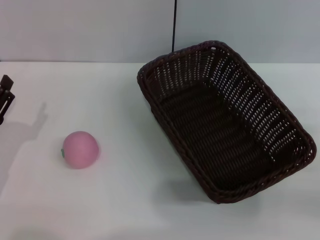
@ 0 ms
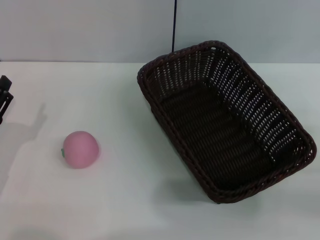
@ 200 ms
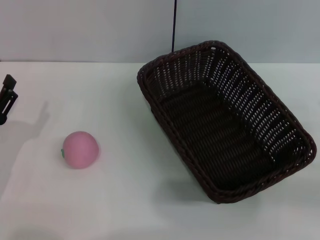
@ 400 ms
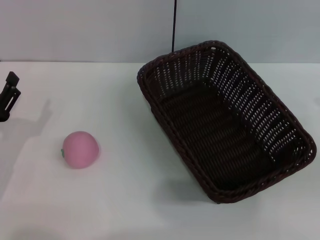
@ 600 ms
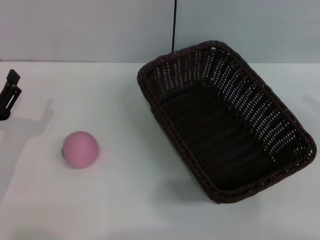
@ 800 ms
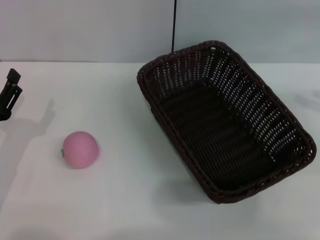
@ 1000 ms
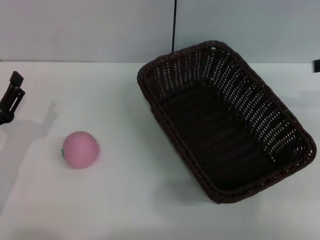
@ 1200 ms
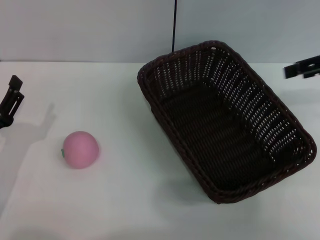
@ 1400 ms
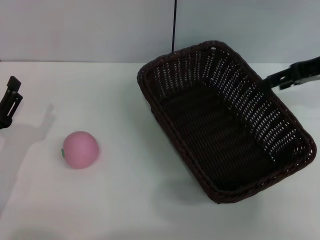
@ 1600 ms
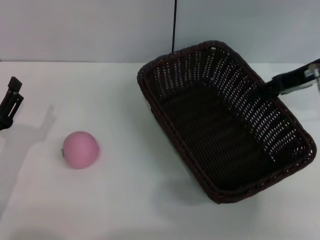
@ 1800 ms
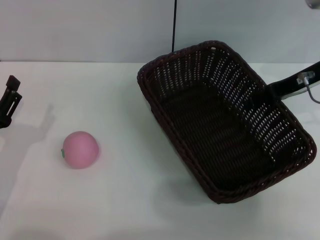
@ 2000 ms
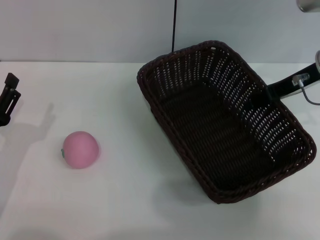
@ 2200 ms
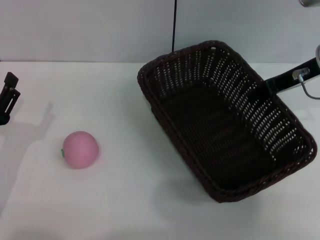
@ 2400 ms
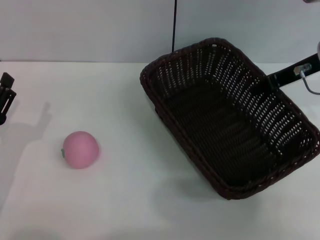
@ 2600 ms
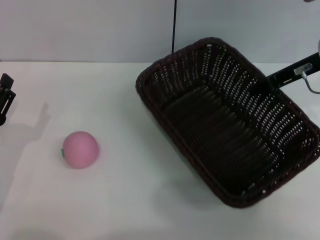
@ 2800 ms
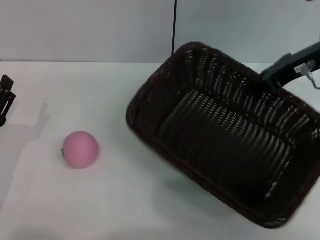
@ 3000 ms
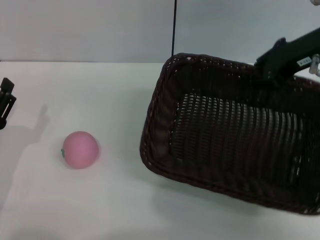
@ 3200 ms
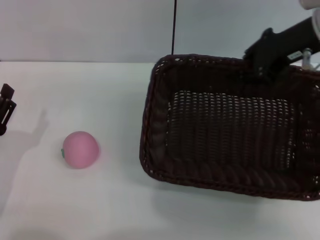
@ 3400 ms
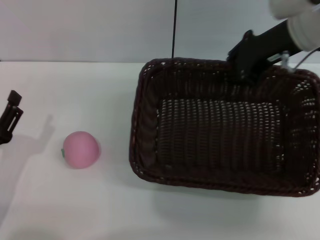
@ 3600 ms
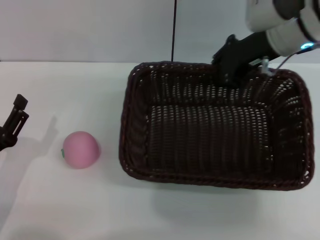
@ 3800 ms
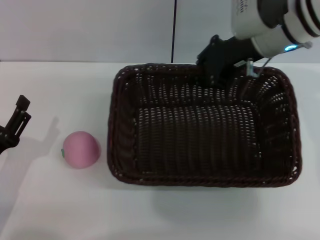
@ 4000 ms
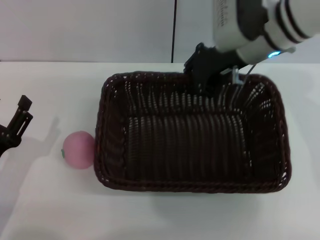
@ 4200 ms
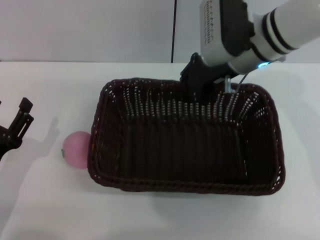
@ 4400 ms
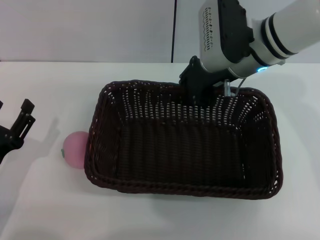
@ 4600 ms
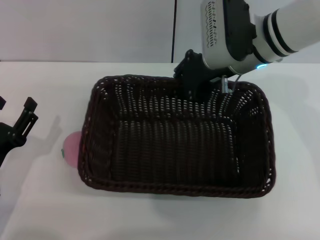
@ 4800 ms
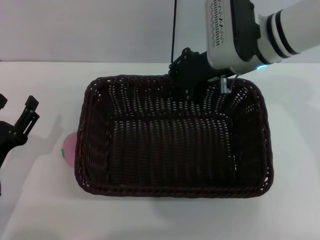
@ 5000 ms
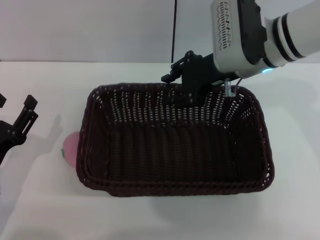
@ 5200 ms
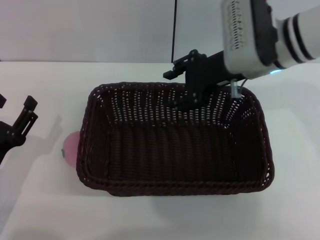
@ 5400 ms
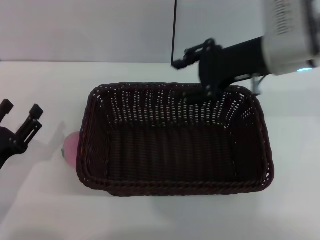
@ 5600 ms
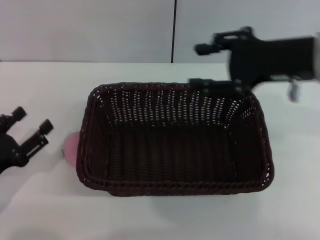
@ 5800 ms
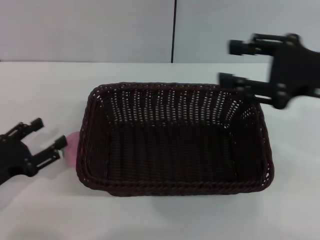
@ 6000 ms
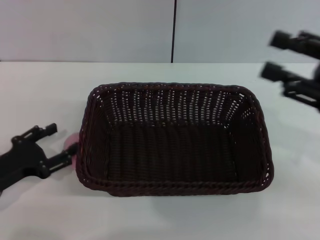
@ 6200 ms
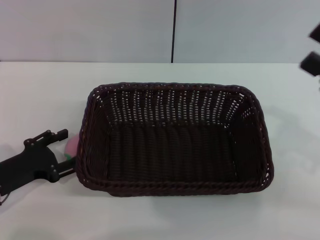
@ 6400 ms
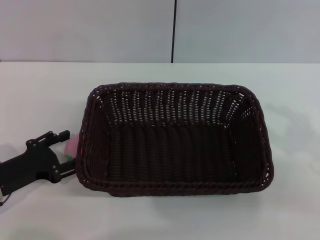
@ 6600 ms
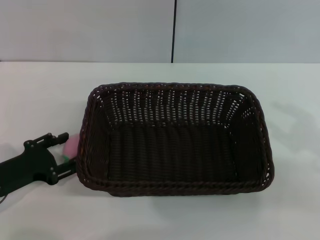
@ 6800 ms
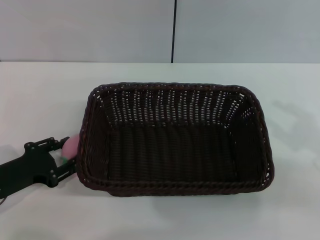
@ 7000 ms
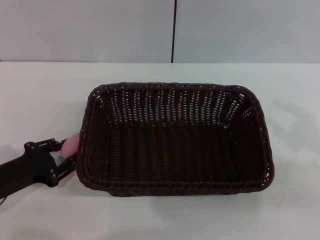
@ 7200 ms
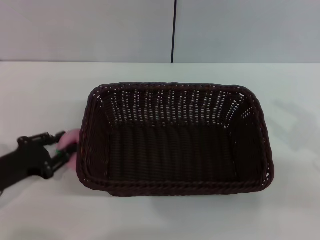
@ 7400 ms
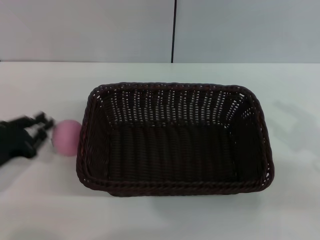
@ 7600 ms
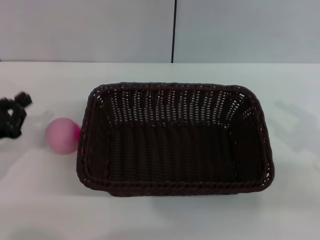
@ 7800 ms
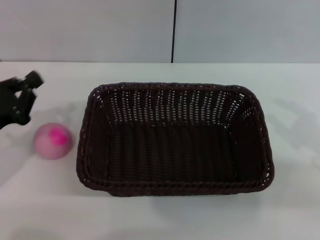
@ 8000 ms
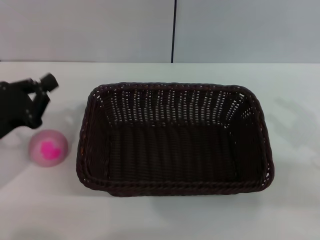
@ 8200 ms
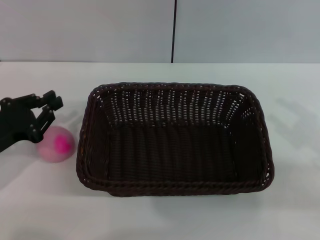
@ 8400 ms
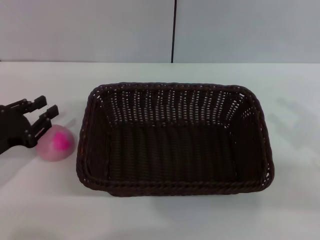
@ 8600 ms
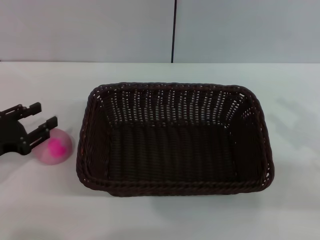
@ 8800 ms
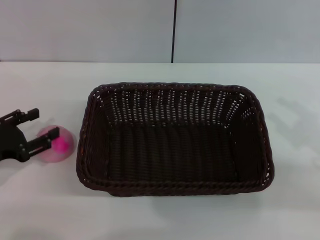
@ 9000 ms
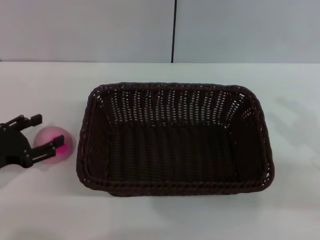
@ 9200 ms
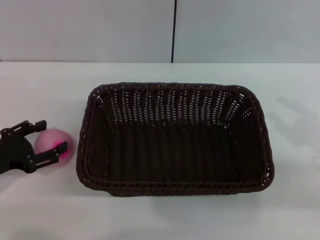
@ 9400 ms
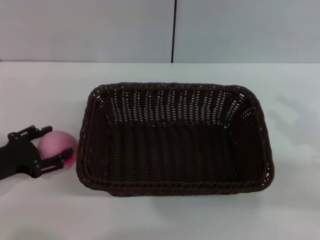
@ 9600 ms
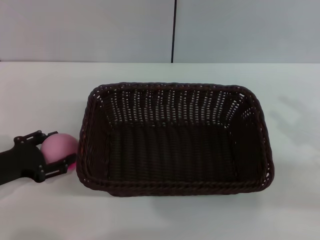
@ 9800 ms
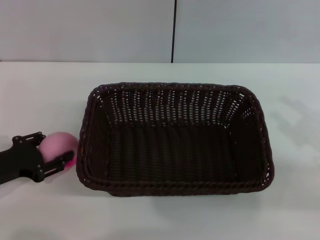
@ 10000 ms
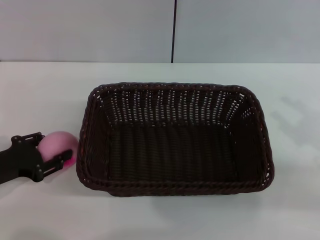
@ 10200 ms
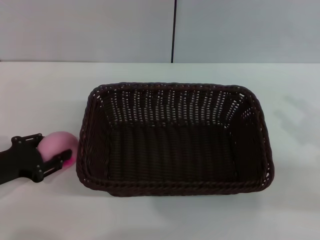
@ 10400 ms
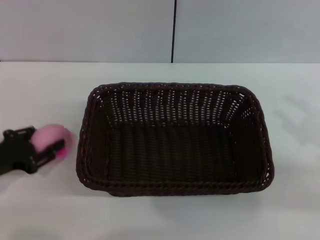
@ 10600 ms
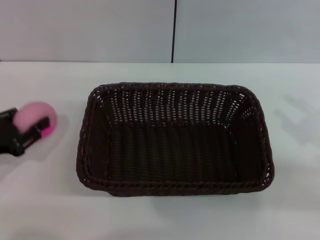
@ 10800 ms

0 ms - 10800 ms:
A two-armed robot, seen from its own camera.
Step, 0 ms - 2800 ms: Pick up the dark basket with the right gripper.
Step, 3200 ms - 5400 ms: Place the dark basket in the center of view with the right gripper.
0 ms - 1600 ms: The right gripper is displaced forward, upward and to the left by about 25 cm.
1600 ms - 3000 ms: The right gripper goes about 5 cm to the left, and closes up.
3000 ms - 4600 ms: The right gripper goes approximately 10 cm to the left.
4600 ms - 6200 ms: The right gripper goes some 25 cm to the right and backward, and opens up.
6200 ms - 7800 ms: The left gripper closes up. Meanwhile the right gripper shifts by approximately 5 cm.
7800 ms - 9200 ms: The left gripper opens its fingers.
9200 ms - 10800 ms: The grippers make only small movements.

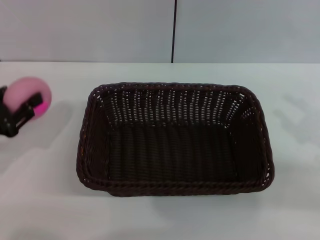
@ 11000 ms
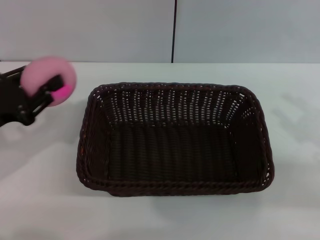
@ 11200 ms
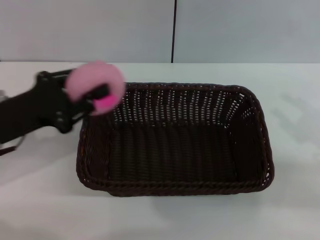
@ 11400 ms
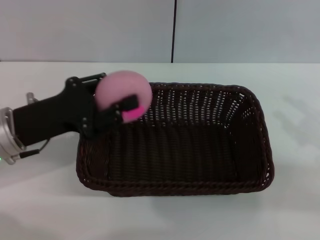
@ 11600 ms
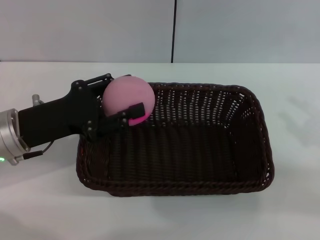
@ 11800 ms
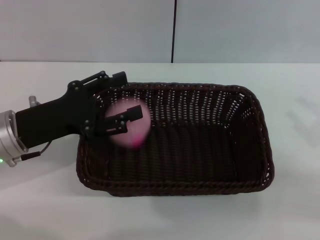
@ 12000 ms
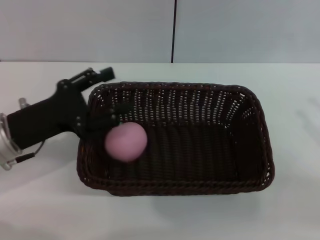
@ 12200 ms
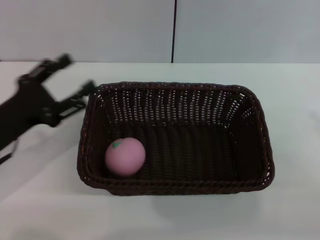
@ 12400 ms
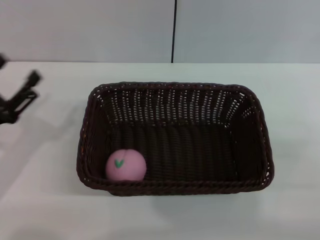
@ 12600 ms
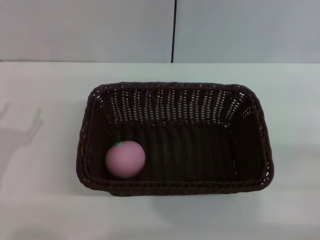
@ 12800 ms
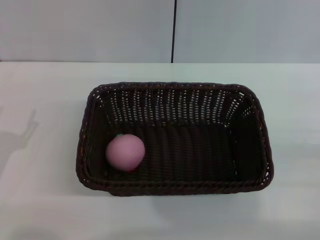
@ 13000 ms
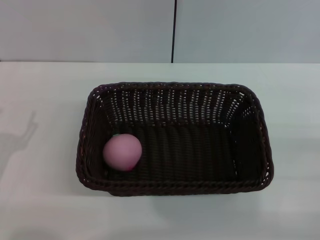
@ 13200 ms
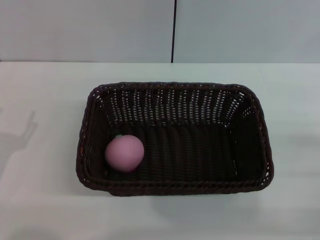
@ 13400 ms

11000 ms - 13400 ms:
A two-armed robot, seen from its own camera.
Step, 11200 ms - 12400 ms: Place the peach into the basket with the left gripper.
11000 ms - 12200 ms: The left gripper shifts about 10 cm to the right, and opens up.
12200 ms - 13400 ms: The left gripper is displaced backward, to the left and downward by some 10 cm; the right gripper heads downward, covering roughly 5 cm.

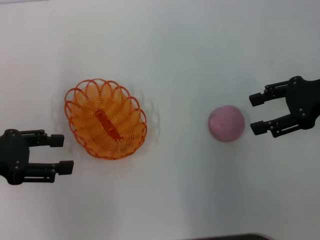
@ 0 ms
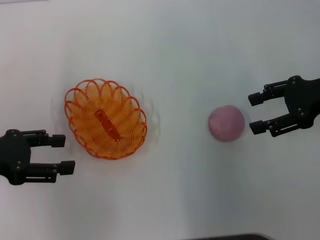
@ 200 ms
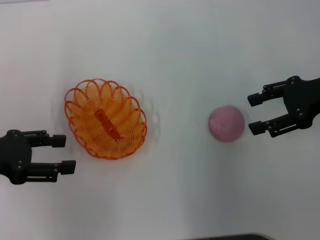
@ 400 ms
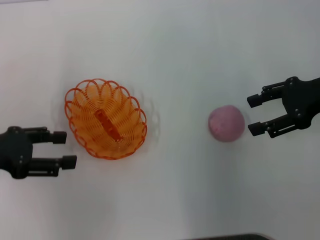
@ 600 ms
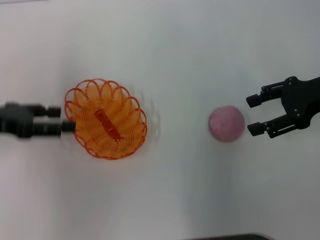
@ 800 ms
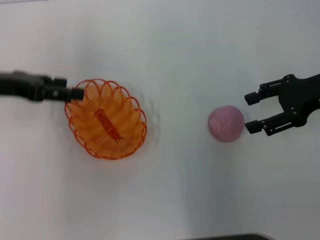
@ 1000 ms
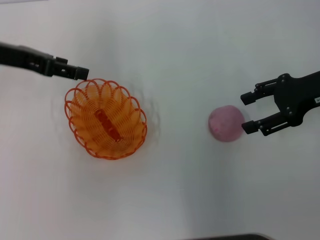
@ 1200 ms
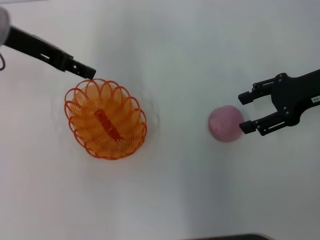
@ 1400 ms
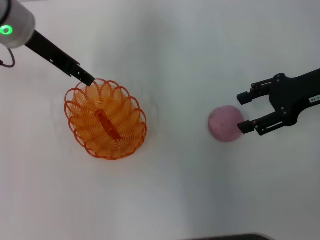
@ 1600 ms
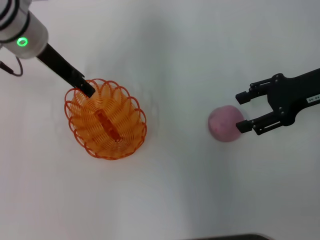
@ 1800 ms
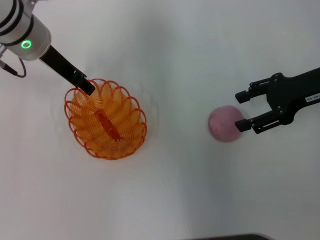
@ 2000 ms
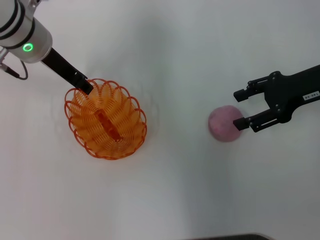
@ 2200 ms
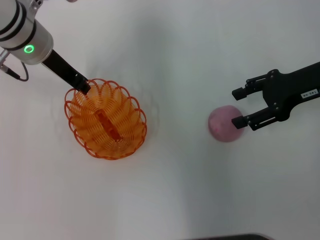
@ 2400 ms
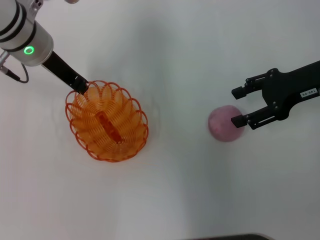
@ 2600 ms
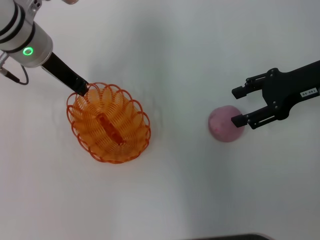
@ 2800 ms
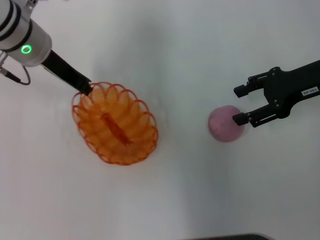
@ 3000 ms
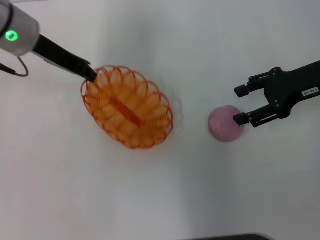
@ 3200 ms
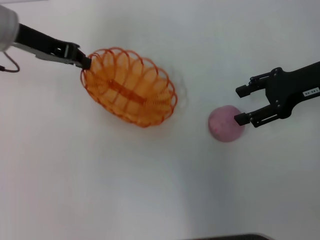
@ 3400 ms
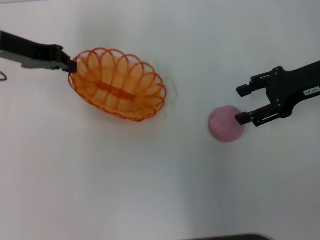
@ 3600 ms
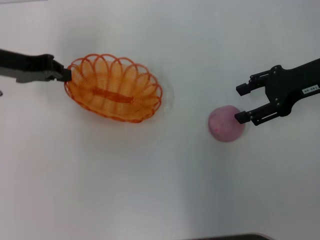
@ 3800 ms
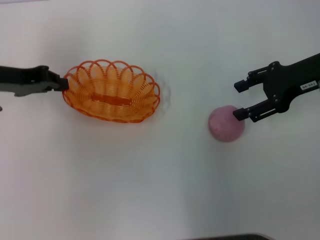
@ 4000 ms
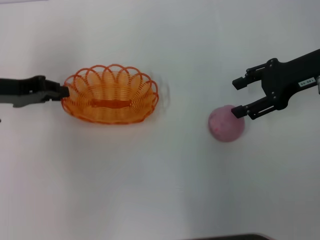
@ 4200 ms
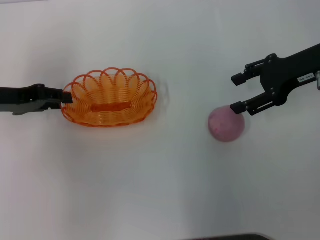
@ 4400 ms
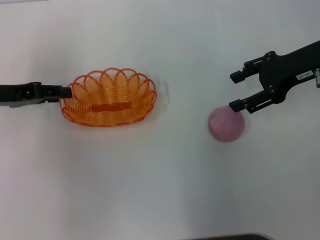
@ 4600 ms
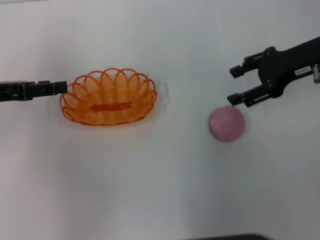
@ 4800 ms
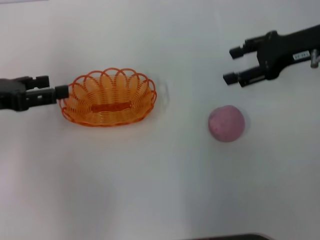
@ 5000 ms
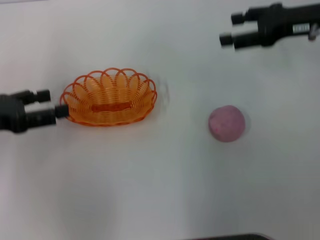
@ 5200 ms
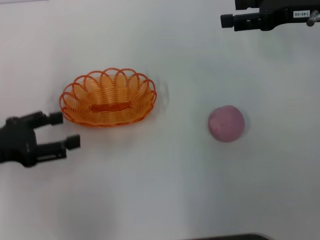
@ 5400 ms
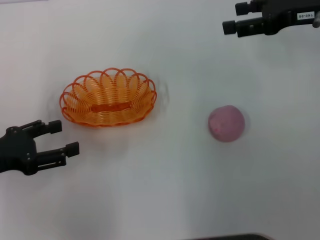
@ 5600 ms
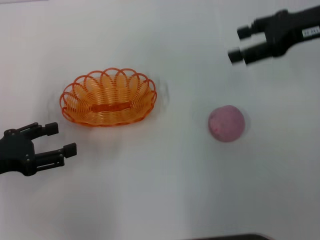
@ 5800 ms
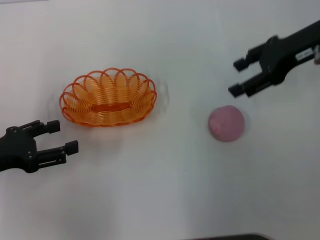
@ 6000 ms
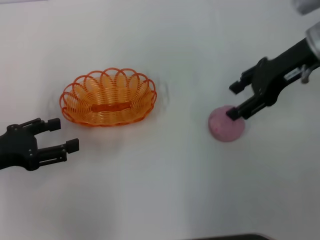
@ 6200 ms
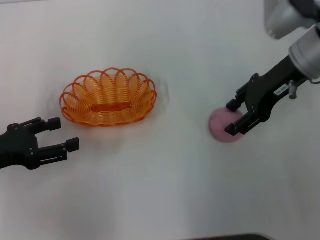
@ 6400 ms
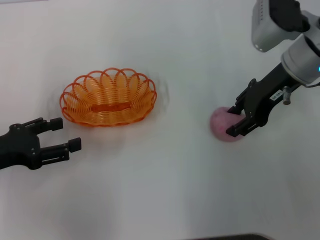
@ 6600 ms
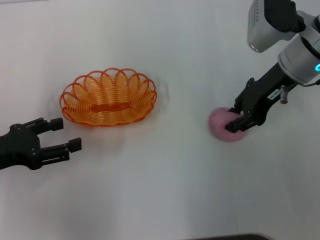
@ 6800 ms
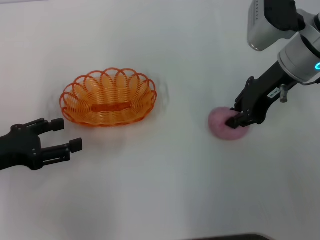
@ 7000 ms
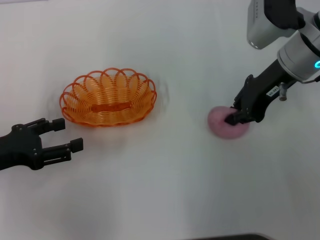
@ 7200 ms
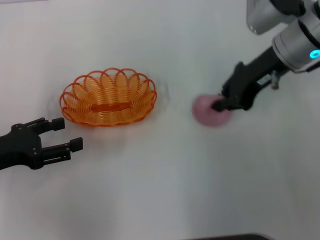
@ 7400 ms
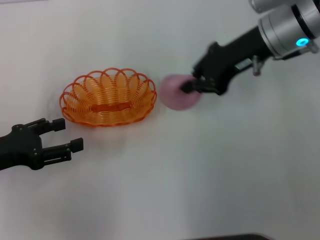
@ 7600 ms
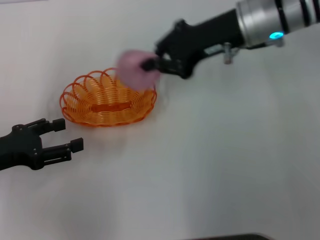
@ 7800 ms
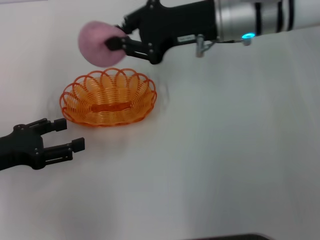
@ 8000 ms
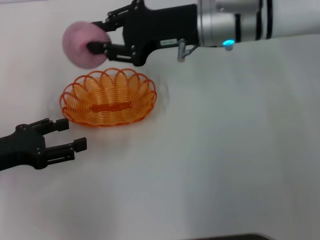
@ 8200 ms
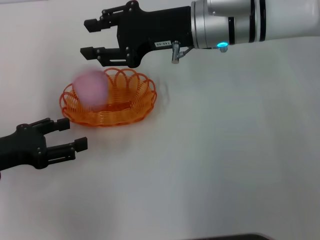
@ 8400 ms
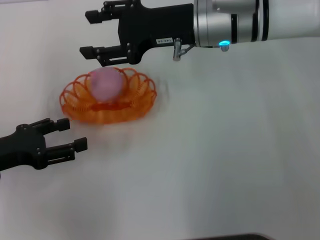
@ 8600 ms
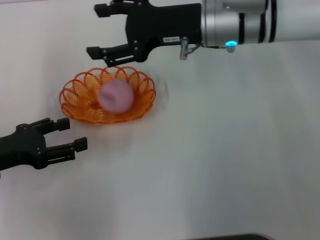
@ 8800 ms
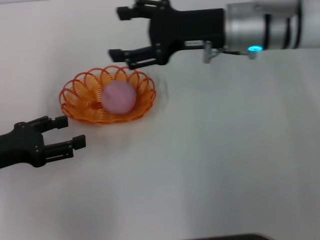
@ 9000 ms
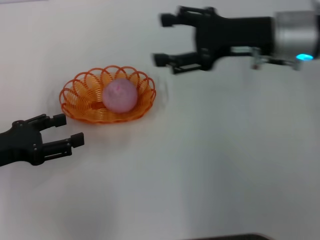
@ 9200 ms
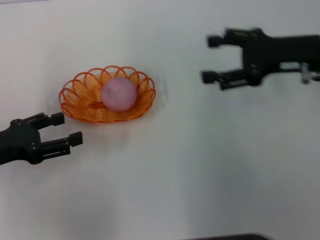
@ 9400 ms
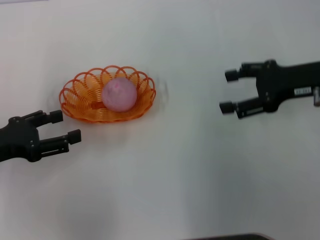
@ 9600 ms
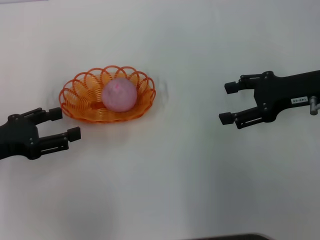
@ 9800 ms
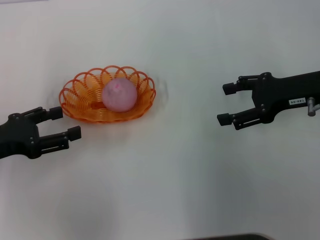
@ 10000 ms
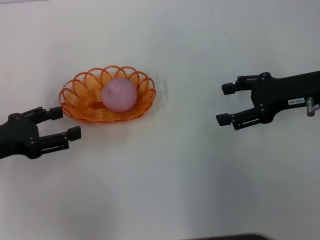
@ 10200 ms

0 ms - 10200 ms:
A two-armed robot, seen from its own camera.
Step, 0 ms - 3000 ms: Pick up the basket with the left gripper.
Step, 3200 ms - 4600 ms: Move the basket to the center of view with the left gripper.
Step, 4800 ms - 7400 ms: Pick up the peach with the right gripper.
Step, 7600 ms - 9000 ms: Place the peach into the basket with the right gripper.
0 ms - 1400 ms: The left gripper moves forward, to the right and upward, approximately 20 cm.
1400 ms - 3000 ms: The left gripper changes place by roughly 5 cm, and closes.
3000 ms - 4400 ms: The left gripper travels to the left and backward by roughly 15 cm.
4400 ms - 5800 ms: The left gripper moves backward, about 10 cm, and opens its fingers.
5800 ms - 7200 ms: The right gripper moves to the left, approximately 10 cm, and closes up.
7200 ms - 8800 ms: The right gripper is displaced to the left by about 10 cm, and opens.
8800 ms - 10200 ms: The right gripper is displaced to the right and backward by approximately 15 cm.
